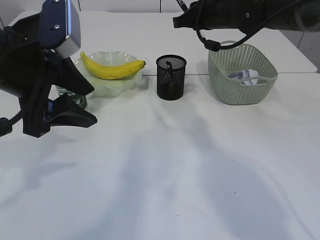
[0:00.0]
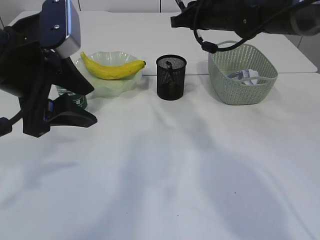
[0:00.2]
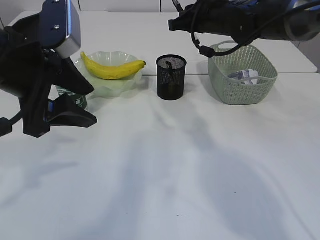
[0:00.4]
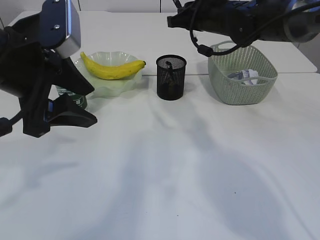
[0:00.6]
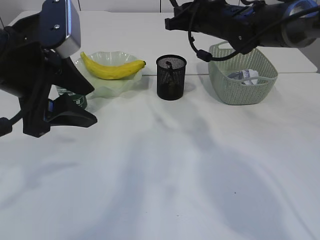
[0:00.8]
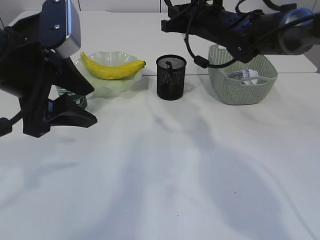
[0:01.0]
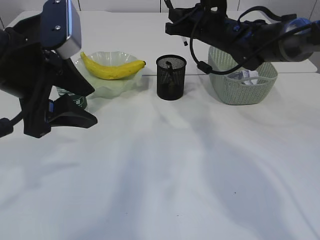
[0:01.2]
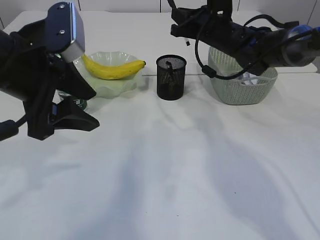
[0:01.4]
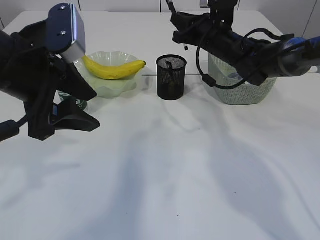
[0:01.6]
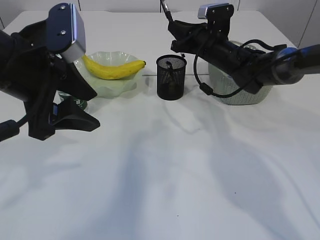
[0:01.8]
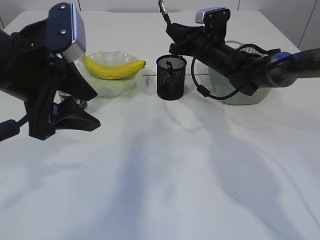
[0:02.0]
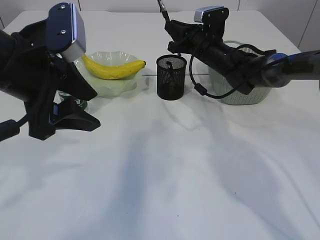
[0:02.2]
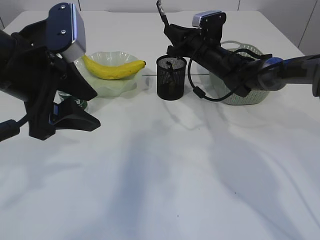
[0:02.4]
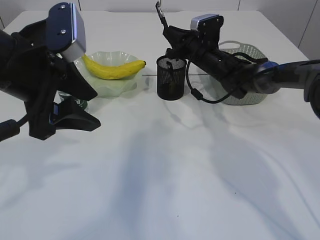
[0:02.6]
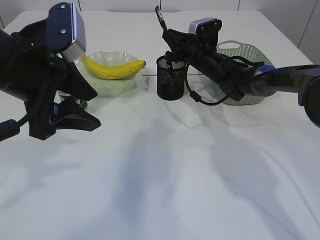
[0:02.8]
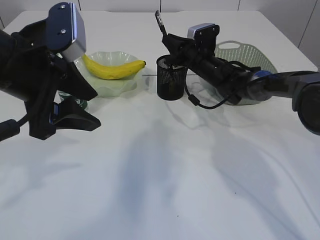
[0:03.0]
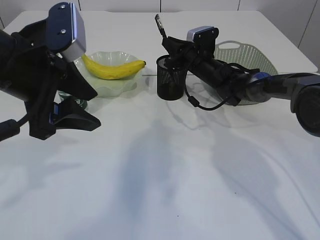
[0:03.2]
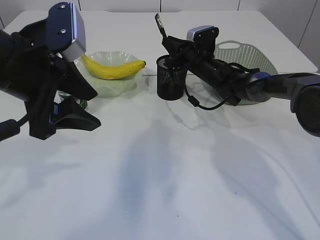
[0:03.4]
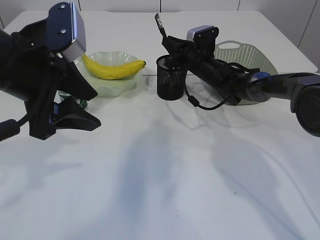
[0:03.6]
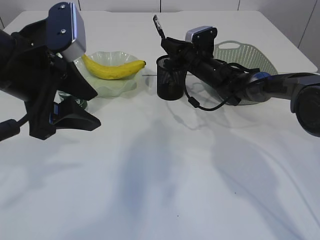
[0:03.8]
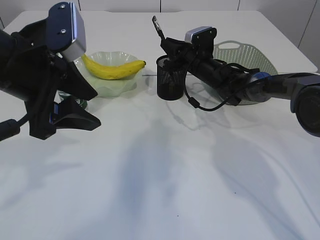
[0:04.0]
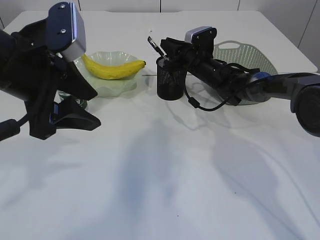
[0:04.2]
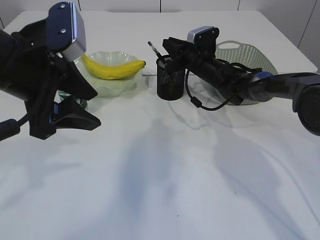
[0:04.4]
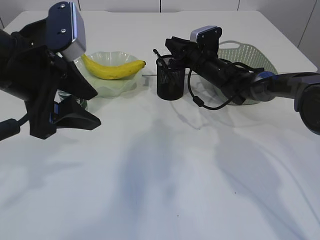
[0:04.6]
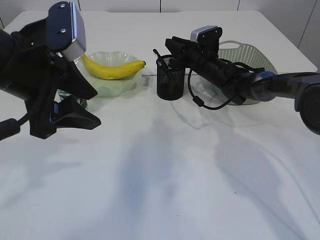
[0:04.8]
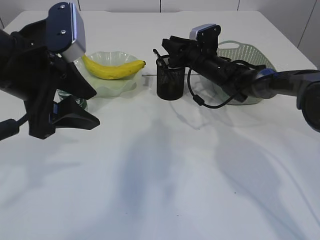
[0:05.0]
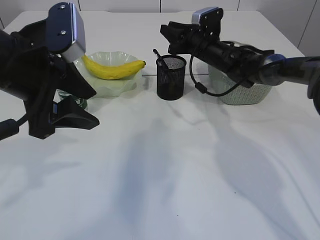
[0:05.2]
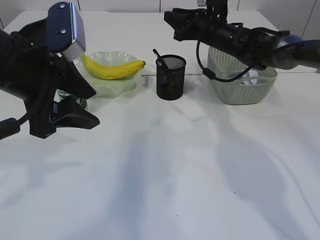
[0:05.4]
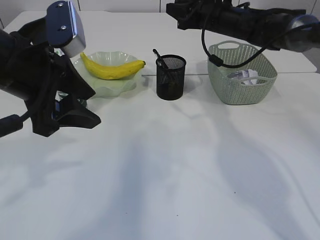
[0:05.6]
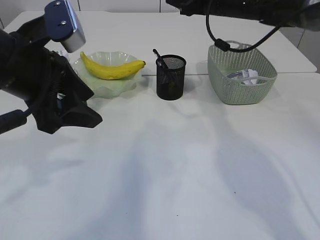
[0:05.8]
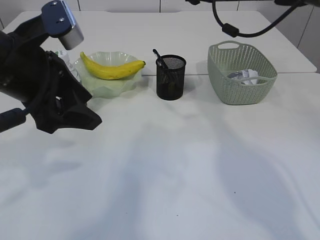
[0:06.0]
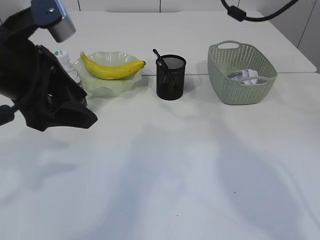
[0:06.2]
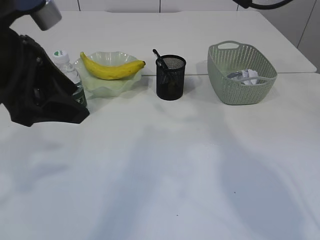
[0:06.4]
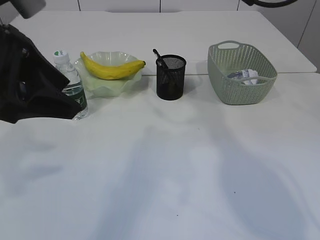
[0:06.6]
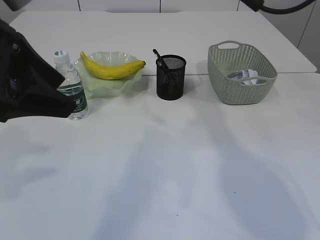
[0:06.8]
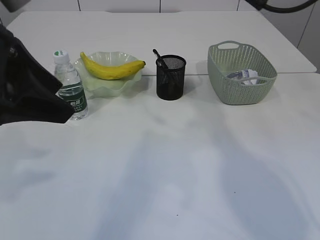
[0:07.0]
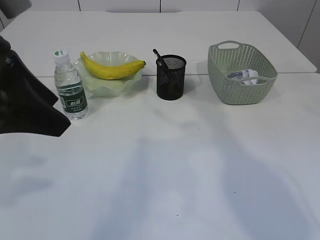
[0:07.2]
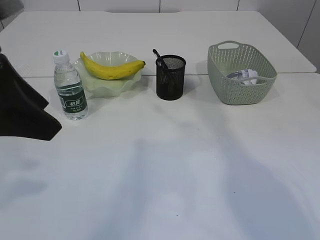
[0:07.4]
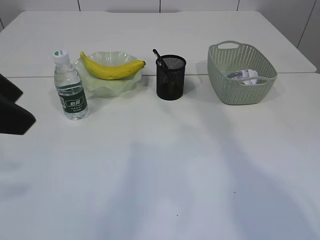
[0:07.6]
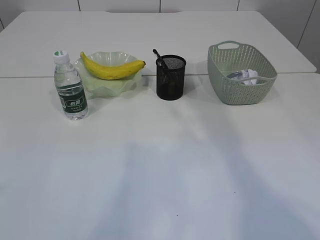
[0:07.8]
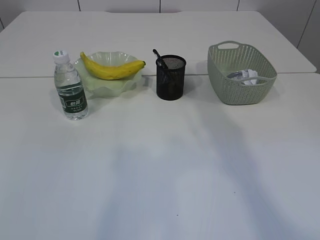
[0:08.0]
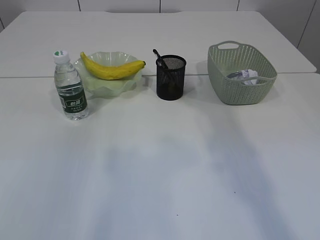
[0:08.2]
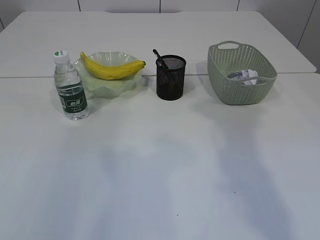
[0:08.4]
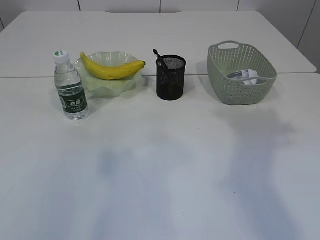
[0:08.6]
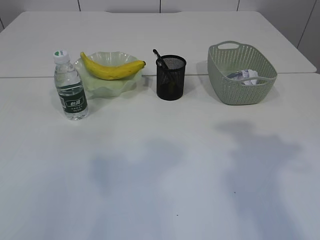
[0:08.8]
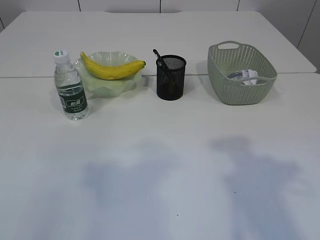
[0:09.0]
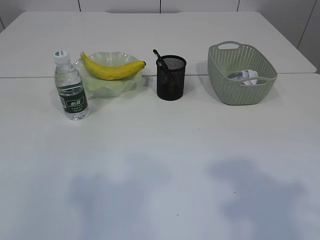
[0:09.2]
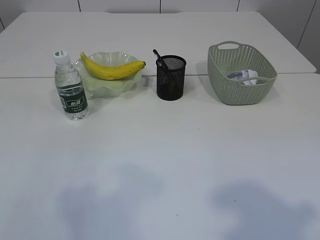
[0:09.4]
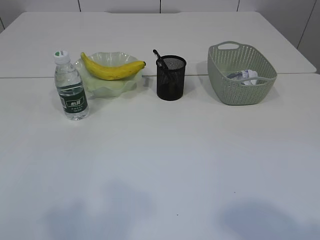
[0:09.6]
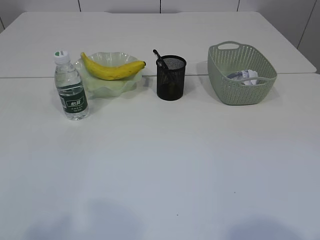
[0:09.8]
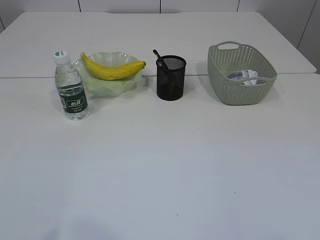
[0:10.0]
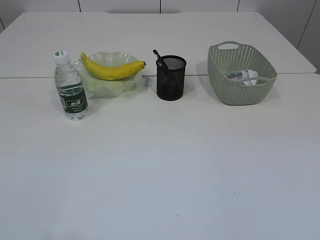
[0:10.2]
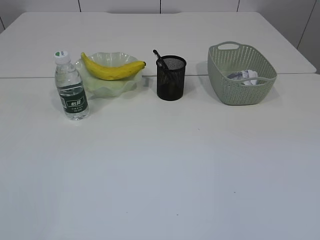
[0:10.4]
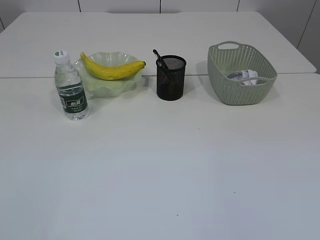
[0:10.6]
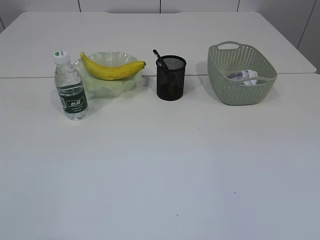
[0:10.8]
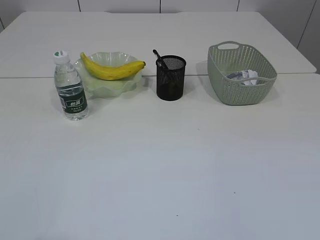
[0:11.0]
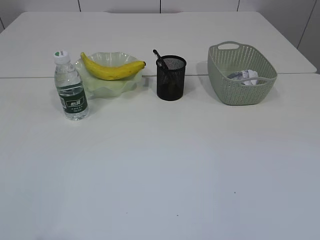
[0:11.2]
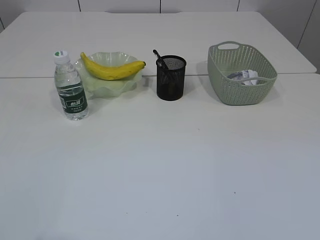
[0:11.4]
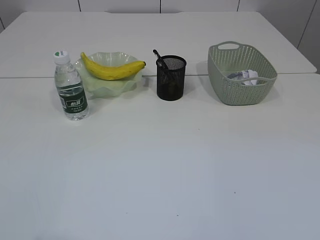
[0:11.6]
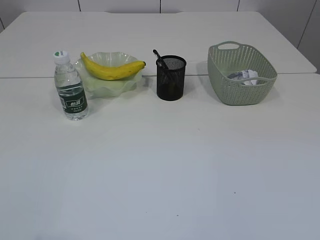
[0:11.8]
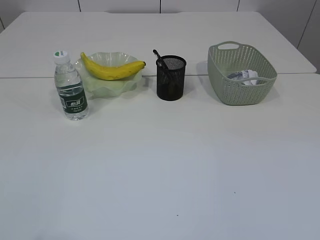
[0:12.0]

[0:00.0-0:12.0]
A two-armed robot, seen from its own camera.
Step, 0.0 to 5.2 s: Place the pen into the pen holder.
0.0 to 1.6 s: The right gripper is displaced downward by about 5 cm.
1.6 to 3.0 s: The right gripper heads downward, covering about 10 cm.
3.0 to 4.4 s: The two grippers keep their place.
4.4 to 6.0 s: The right gripper goes about 20 cm upward.
6.0 to 7.6 s: The right gripper travels upward and backward by approximately 15 cm, while the left gripper is displaced backward and upward by about 10 cm.
7.6 to 9.0 s: The right gripper shifts some 25 cm backward and downward; the left gripper goes roughly 10 cm backward and to the left.
9.0 to 10.4 s: The right gripper goes some 20 cm backward. The left gripper goes roughly 15 cm backward and downward.

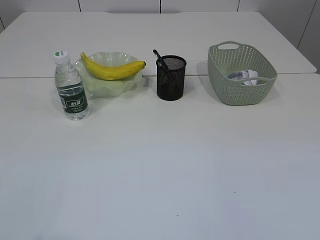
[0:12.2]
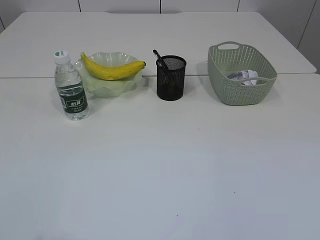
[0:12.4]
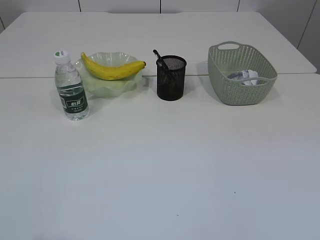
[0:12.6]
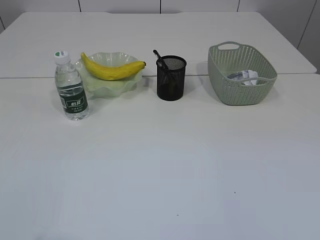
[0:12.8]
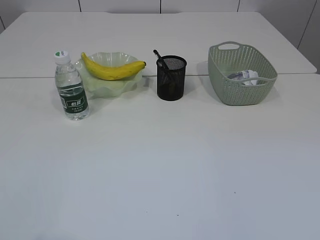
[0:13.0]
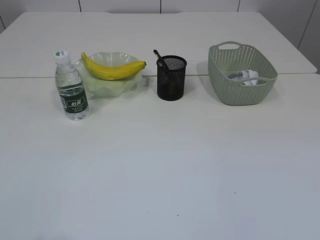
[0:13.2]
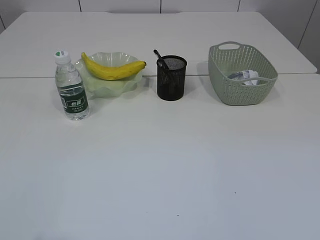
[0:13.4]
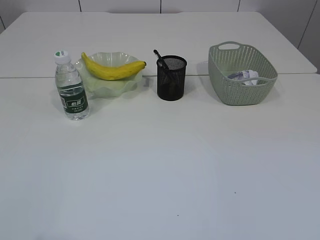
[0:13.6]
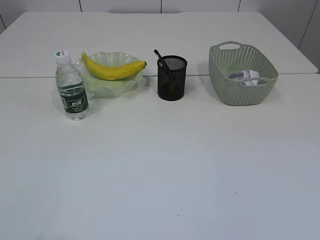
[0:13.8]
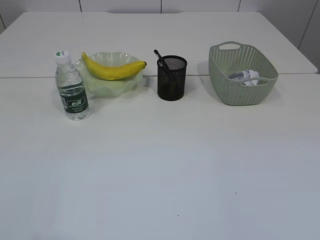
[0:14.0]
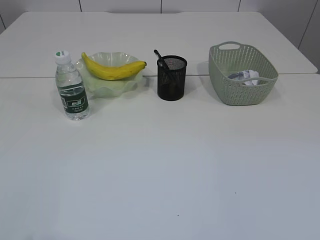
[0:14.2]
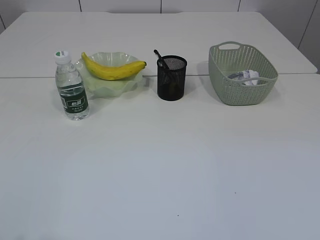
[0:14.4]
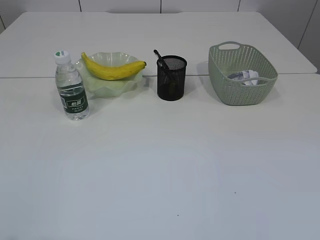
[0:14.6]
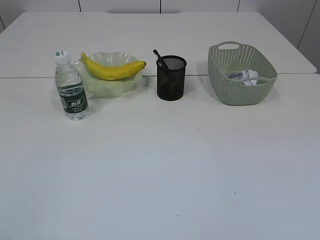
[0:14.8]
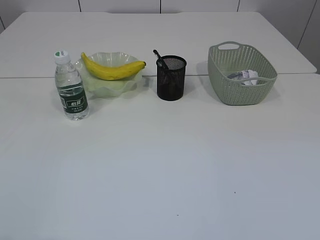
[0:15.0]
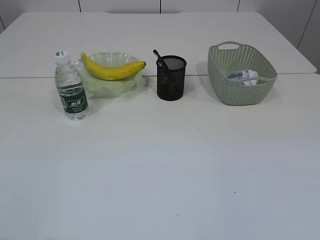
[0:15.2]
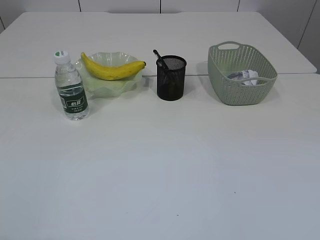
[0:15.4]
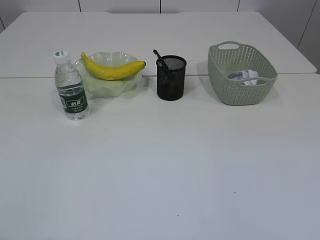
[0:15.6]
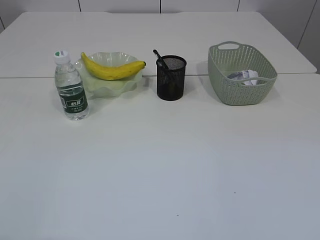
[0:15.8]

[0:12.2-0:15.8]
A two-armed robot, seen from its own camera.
12.2 to 14.0 s: Neither gripper changes place.

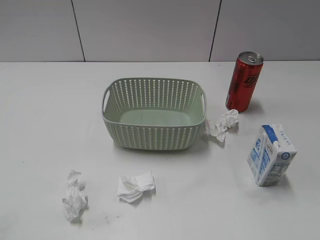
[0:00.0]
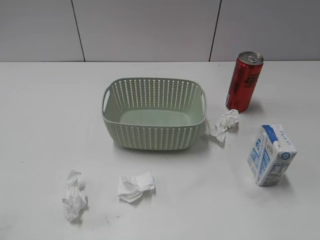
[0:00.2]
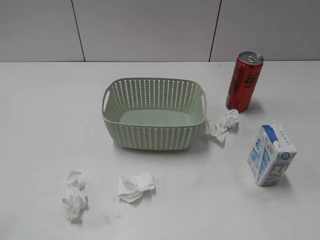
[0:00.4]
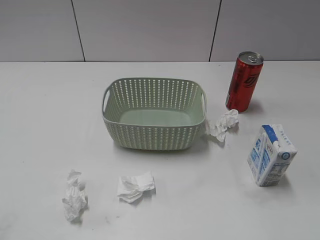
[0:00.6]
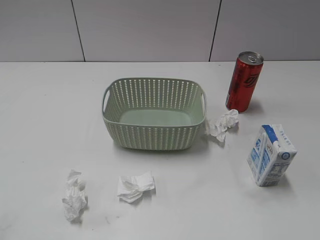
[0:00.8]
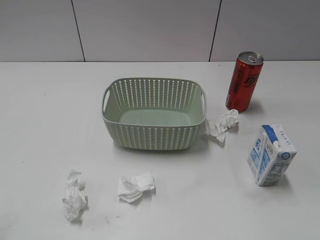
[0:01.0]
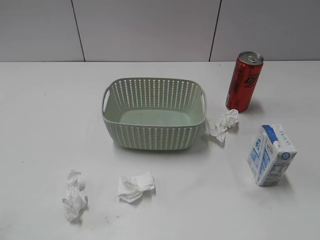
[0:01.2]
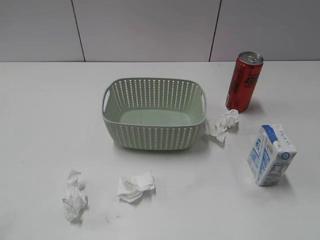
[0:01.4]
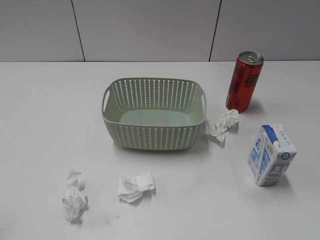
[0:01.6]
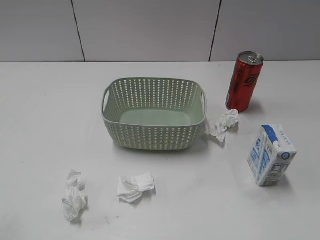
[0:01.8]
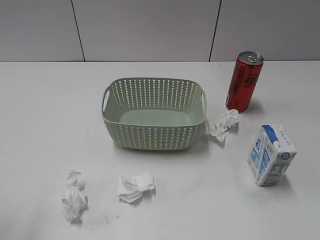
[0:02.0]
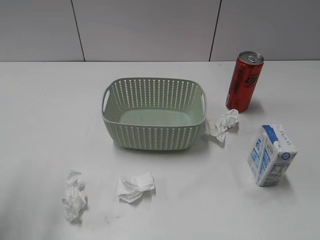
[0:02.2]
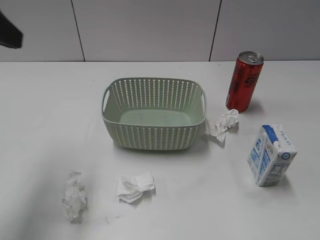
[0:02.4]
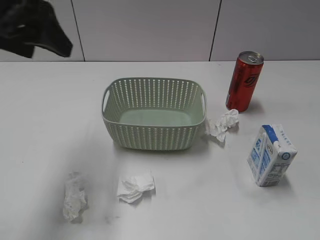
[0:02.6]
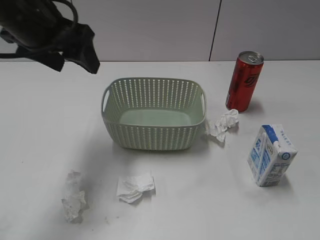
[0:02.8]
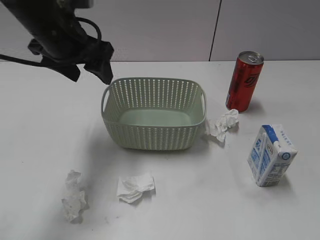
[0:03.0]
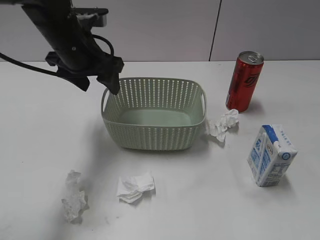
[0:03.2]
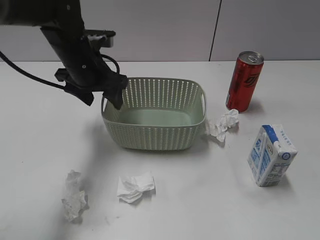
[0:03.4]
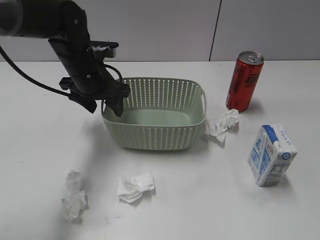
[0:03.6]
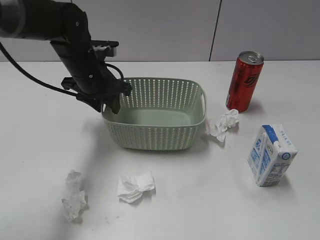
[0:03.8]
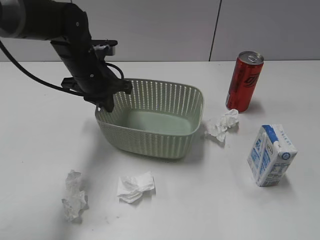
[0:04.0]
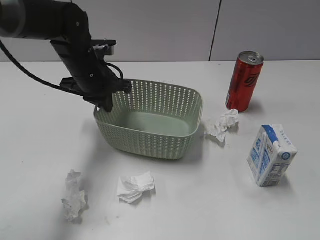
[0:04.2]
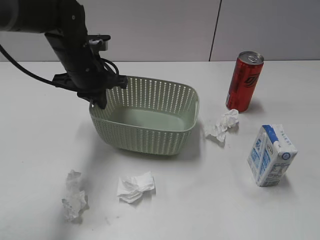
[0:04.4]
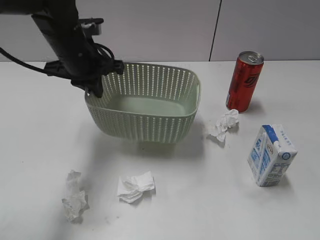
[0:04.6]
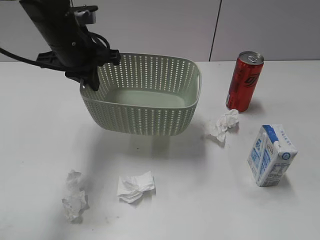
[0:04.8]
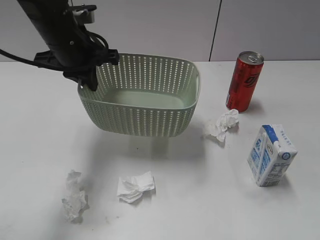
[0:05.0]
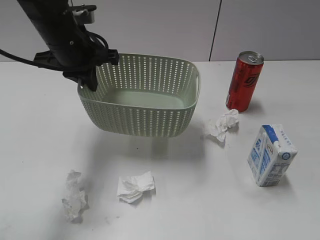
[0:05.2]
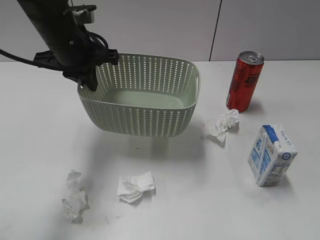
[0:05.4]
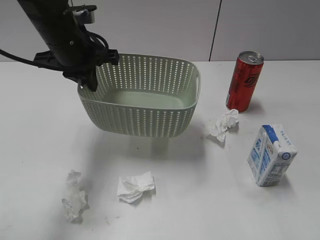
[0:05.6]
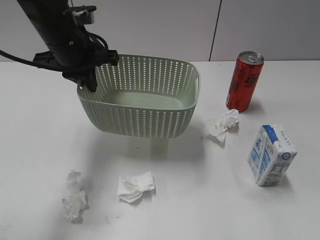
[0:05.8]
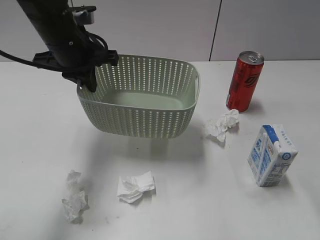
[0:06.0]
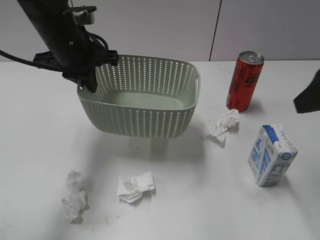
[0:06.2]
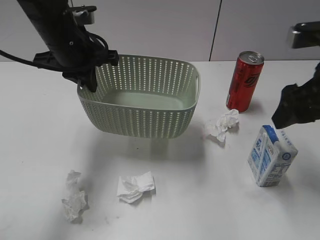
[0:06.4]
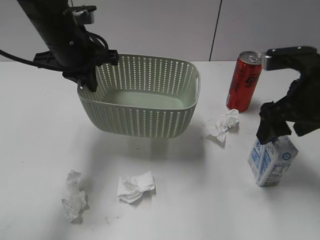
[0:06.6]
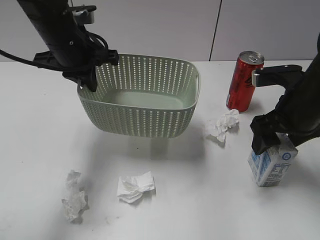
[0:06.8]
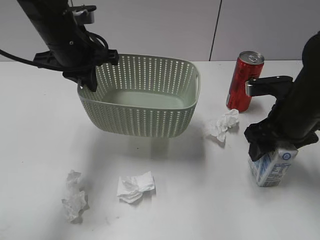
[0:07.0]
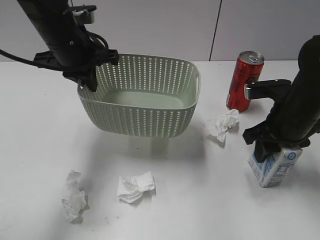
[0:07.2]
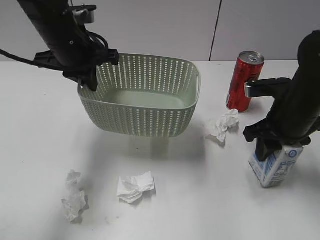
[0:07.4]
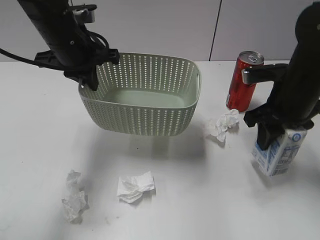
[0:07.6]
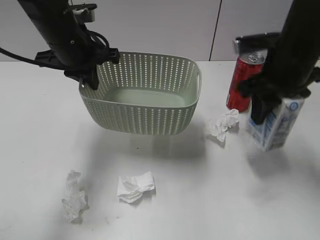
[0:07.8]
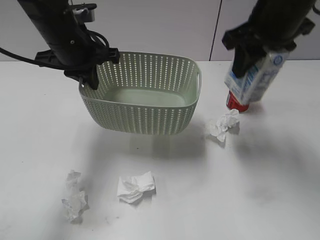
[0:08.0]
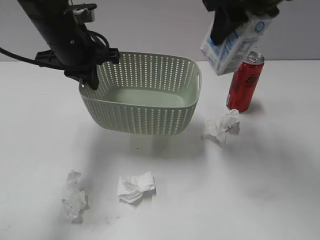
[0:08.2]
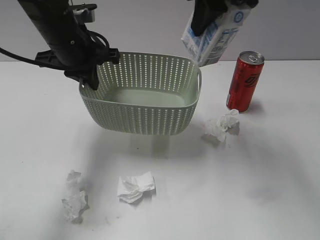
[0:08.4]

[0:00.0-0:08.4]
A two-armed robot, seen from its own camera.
Step, 2.4 to 4.0 s: Grasp the basket with left gripper.
Step, 4.2 to 4.8 s: Lift the basket with left gripper.
Step, 5.0 to 7.2 s: Grasp the milk with right gripper.
1.4 to 2.8 s: The left gripper goes approximately 35 cm forward and to the right.
2.8 to 4.2 s: The left gripper is displaced downward and forward by about 15 cm, and closes.
4.2 to 5.6 s: The right gripper shifts about 5 cm forward; the left gripper goes approximately 5 cm upward.
5.6 to 7.0 s: The right gripper is displaced forward and downward by about 30 cm.
7.0 to 8.4 s: The right gripper travels upward and to the left by roughly 25 cm, and closes its fingers.
